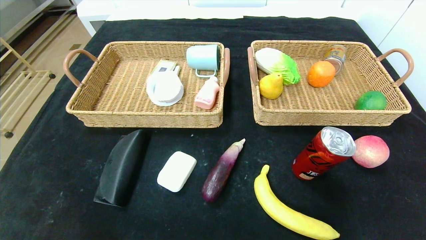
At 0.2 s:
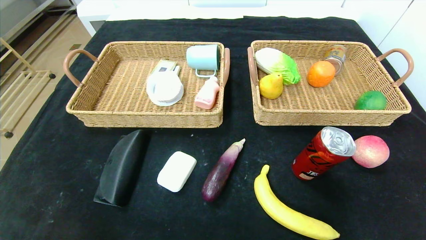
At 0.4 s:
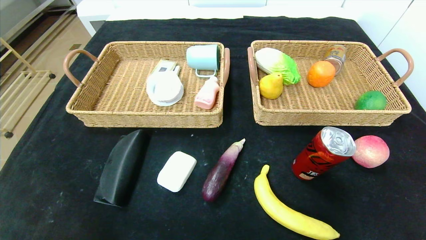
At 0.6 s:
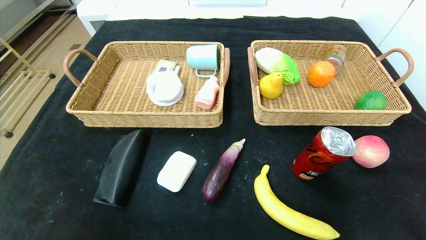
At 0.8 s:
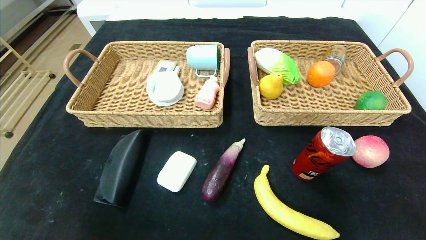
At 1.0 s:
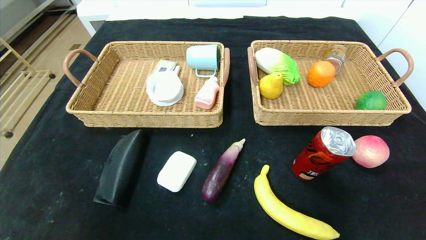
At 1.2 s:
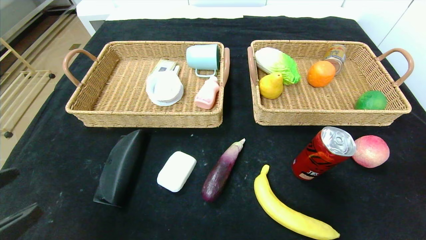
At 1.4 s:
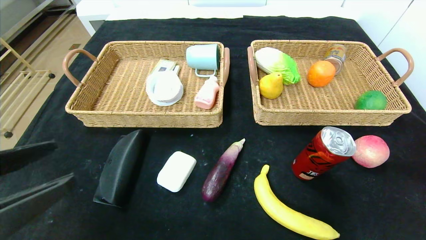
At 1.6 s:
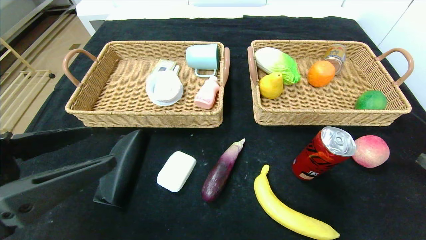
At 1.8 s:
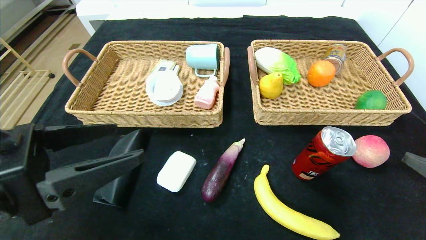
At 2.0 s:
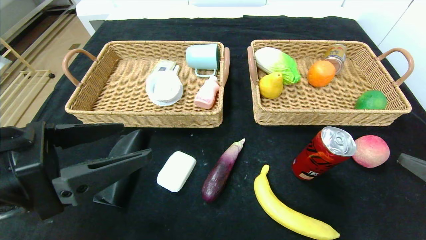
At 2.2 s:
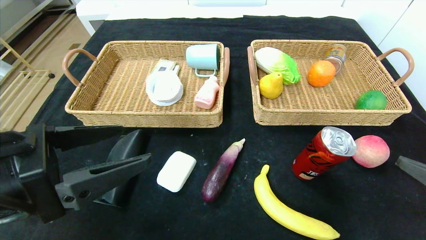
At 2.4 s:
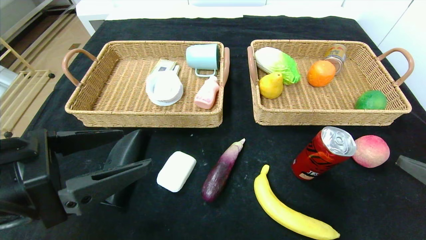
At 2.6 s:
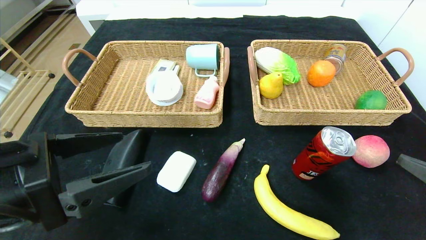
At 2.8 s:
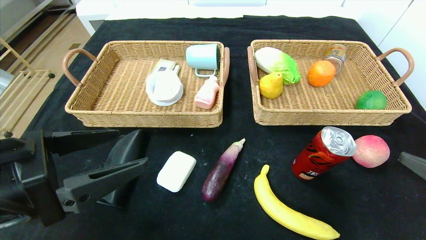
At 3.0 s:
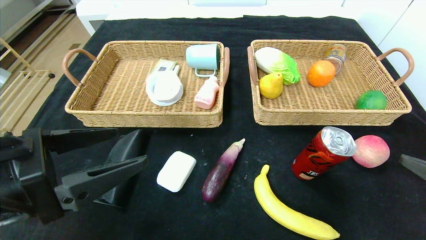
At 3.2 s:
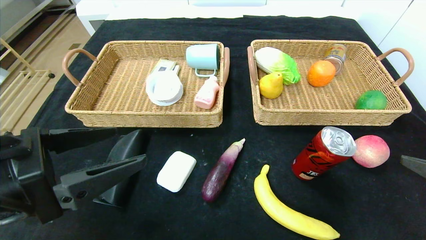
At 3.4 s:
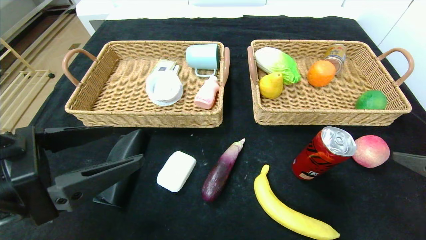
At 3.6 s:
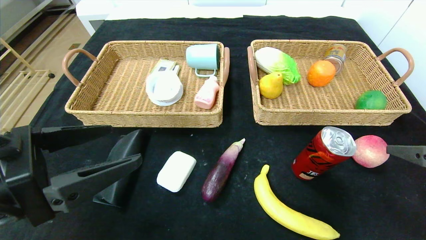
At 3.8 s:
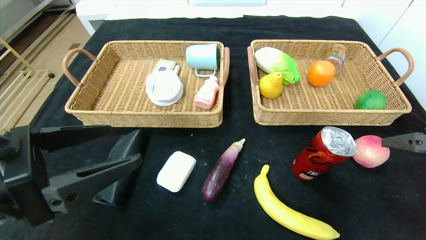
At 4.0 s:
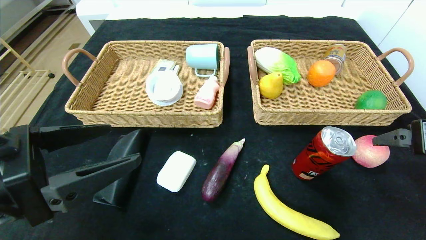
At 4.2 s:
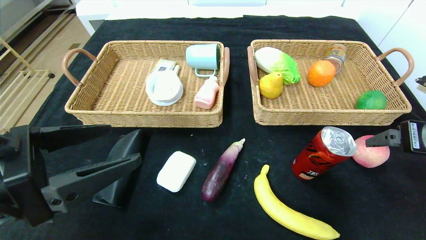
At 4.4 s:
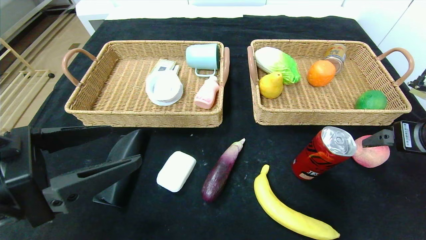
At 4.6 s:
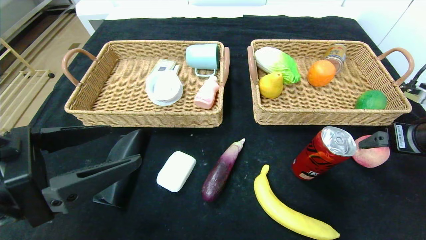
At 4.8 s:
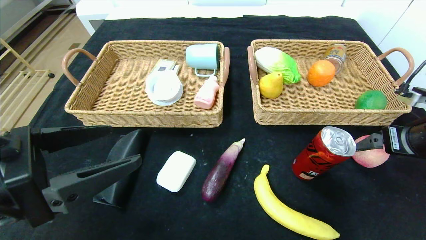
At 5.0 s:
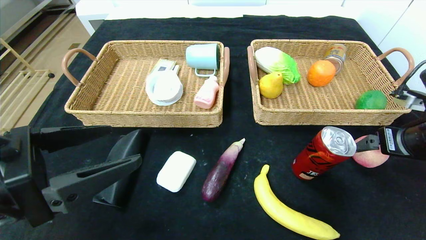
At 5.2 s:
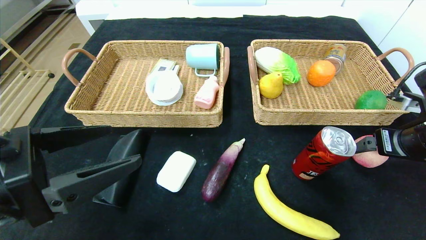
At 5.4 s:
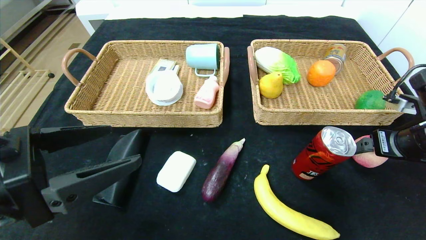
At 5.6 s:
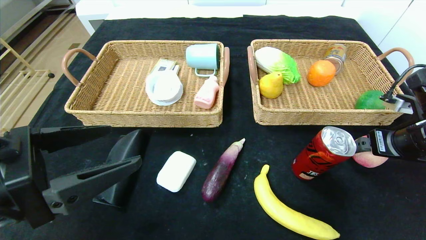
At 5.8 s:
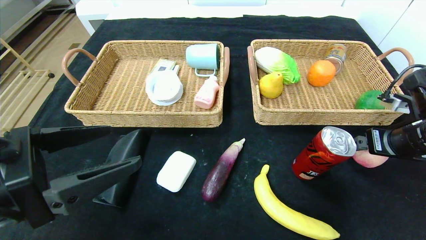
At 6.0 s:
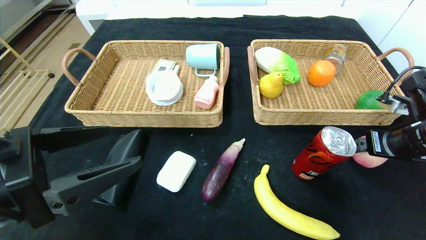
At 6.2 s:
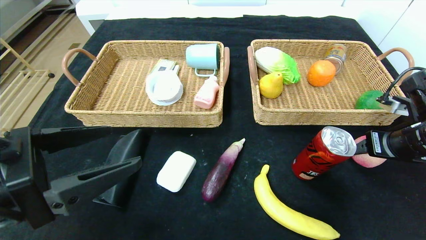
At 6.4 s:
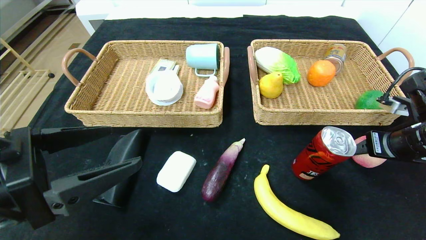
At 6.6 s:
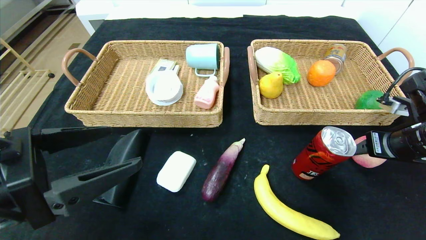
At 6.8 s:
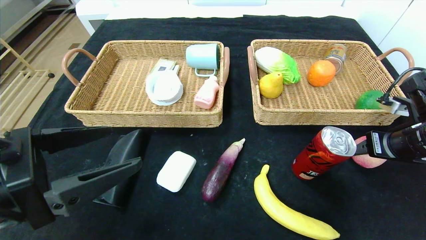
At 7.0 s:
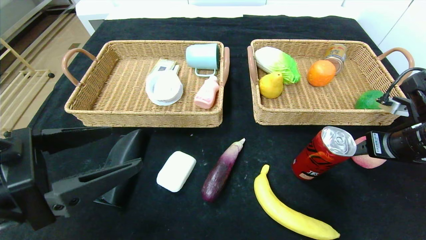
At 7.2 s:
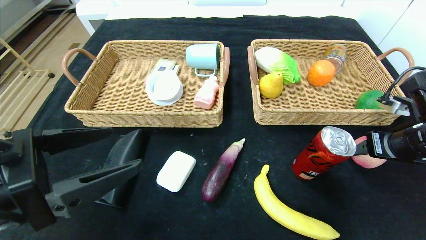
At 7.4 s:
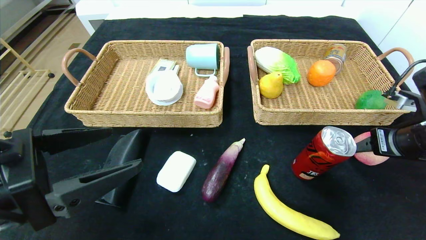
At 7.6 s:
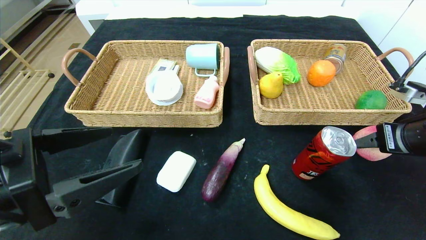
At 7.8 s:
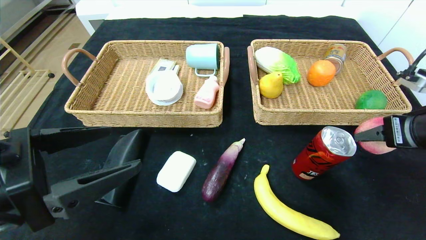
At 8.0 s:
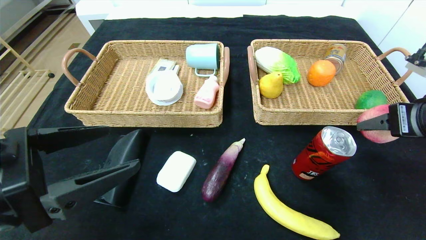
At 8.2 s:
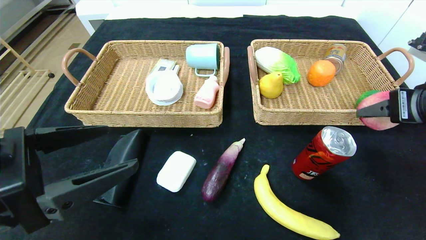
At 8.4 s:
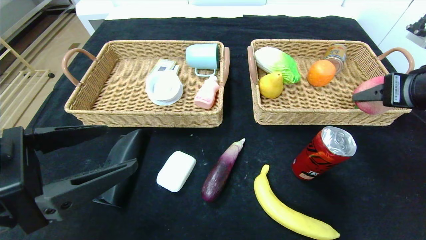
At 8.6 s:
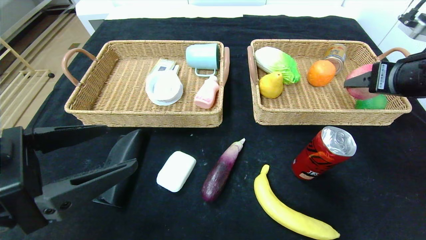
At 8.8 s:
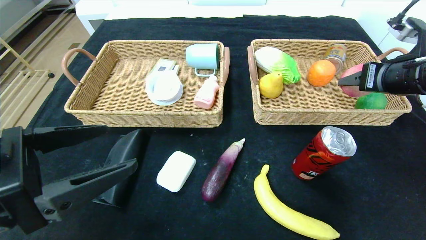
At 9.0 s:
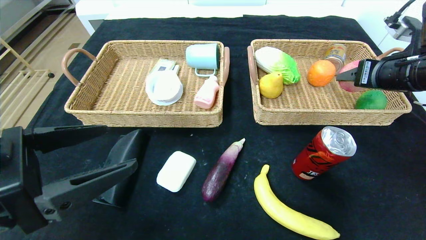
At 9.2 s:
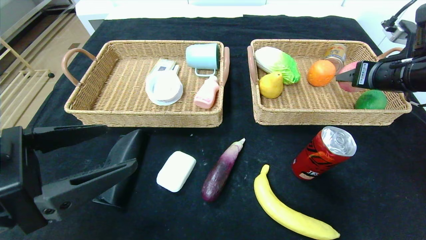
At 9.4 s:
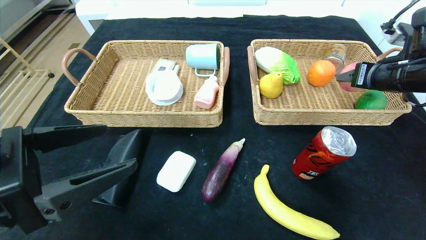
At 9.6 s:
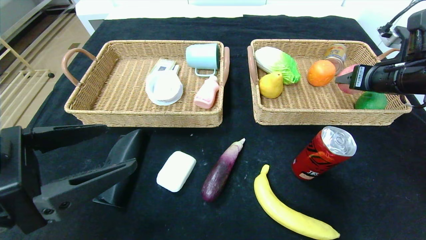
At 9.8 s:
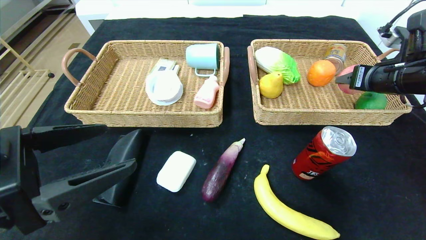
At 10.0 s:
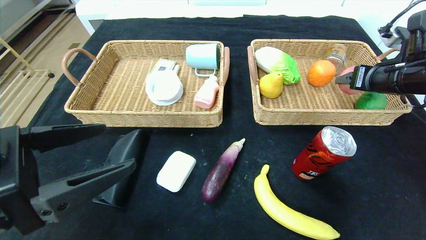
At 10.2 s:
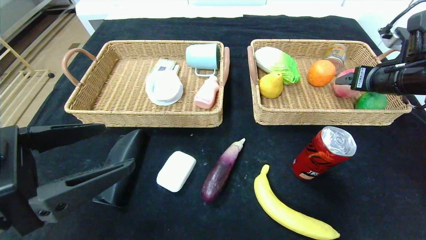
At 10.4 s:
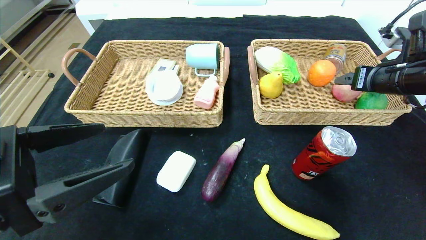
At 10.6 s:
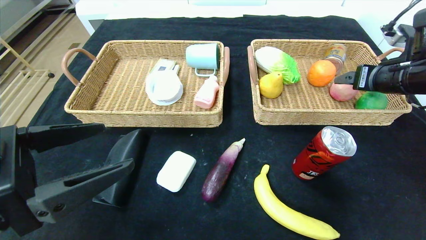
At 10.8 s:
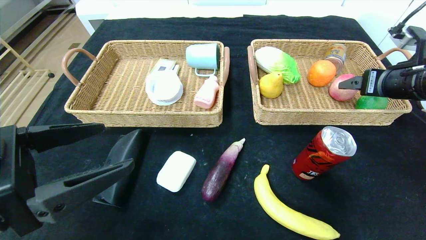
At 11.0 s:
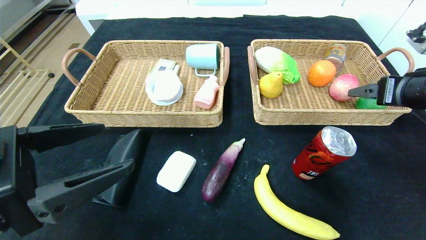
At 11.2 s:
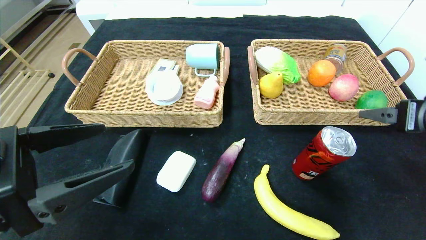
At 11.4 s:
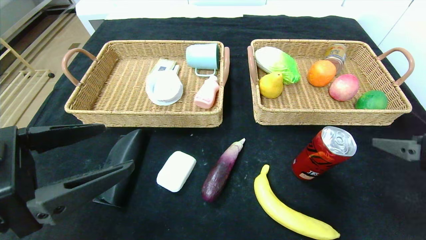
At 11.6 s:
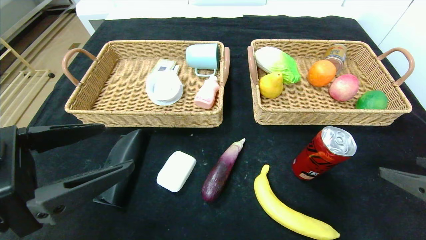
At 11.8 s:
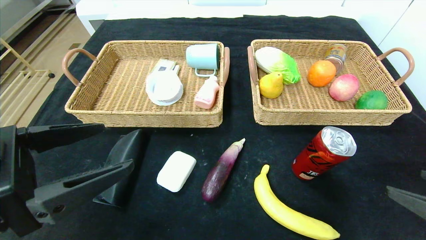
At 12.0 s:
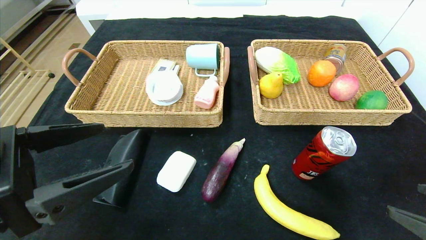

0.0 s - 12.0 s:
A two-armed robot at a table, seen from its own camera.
Step, 0.0 s - 10.2 s: Grasp the peach and put it in the right basket.
0.0 s - 1.6 s: The grippers both shift upward and forward by roughly 20 cm.
1.6 s - 3.0 s: There are only small adjustments of the grippers.
3.0 s - 4.4 s: The right gripper moves forward, approximately 15 cm.
4.4 s - 6.0 s: The right gripper changes place by roughly 5 cm.
6.0 s - 7.6 s: The right gripper closes.
7.6 s - 9.0 s: The right gripper shifts roughly 10 cm forward and upward.
9.0 s - 10.4 s: There are only small adjustments of the grippers.
10.4 s - 12.0 s: The right gripper shifts roughly 25 cm backward.

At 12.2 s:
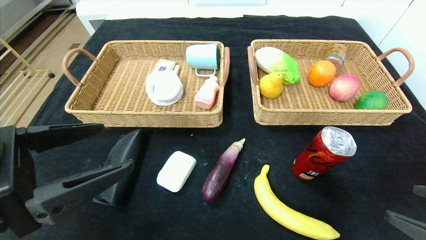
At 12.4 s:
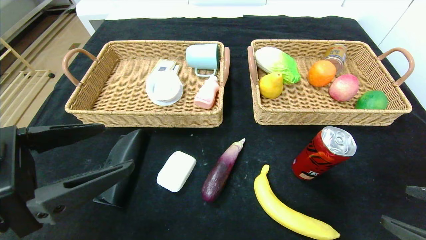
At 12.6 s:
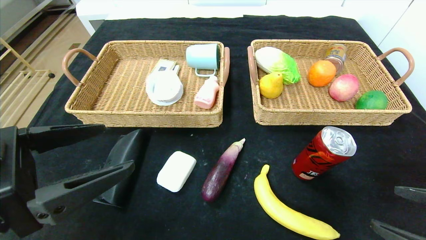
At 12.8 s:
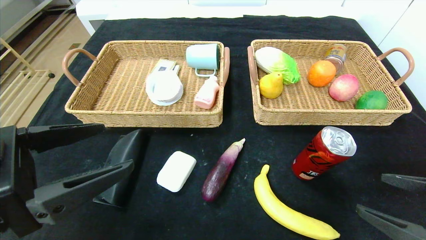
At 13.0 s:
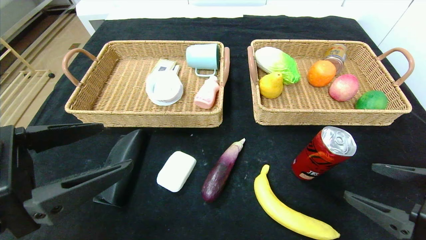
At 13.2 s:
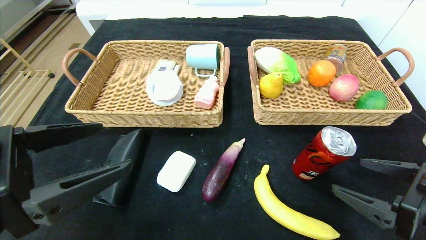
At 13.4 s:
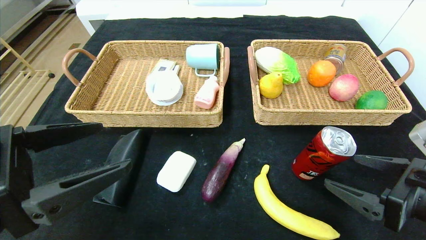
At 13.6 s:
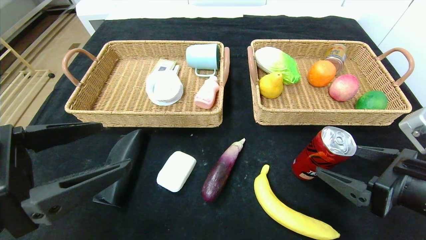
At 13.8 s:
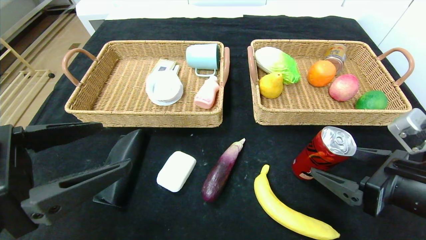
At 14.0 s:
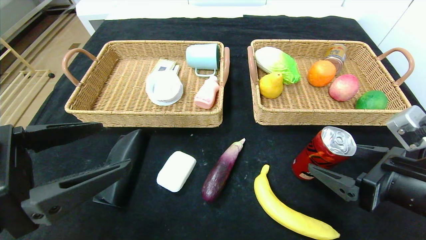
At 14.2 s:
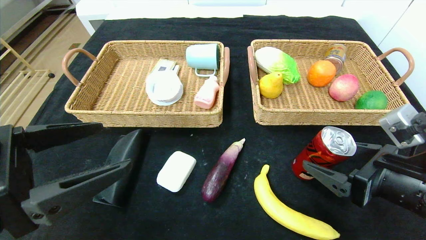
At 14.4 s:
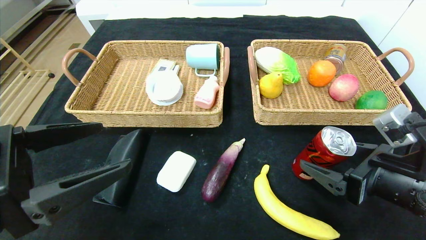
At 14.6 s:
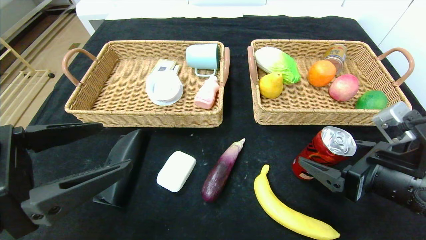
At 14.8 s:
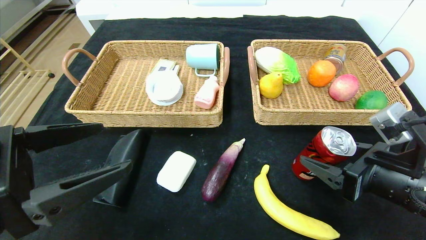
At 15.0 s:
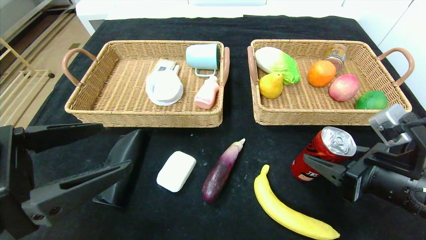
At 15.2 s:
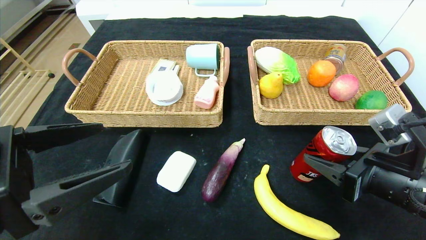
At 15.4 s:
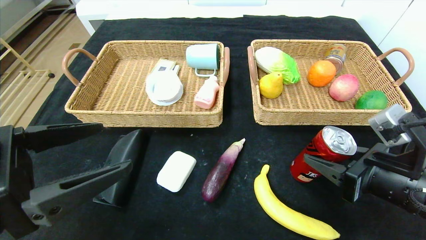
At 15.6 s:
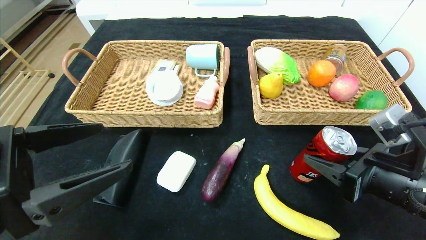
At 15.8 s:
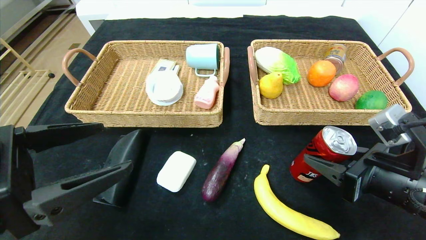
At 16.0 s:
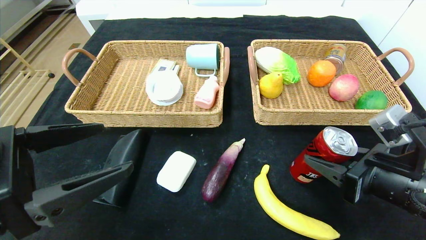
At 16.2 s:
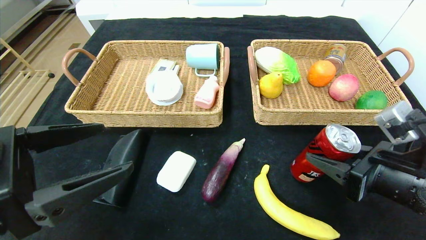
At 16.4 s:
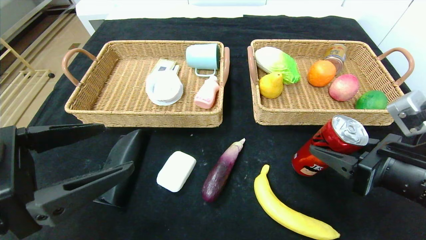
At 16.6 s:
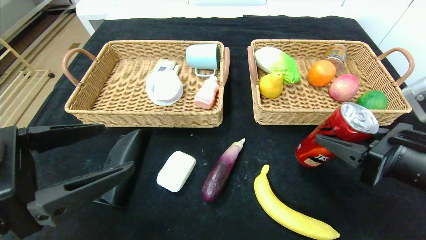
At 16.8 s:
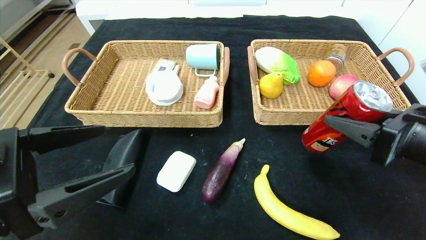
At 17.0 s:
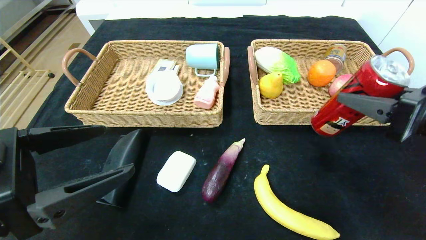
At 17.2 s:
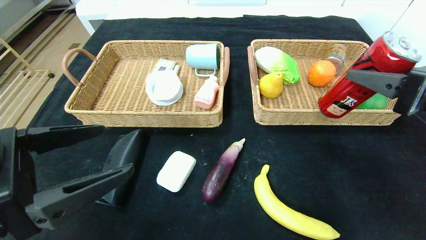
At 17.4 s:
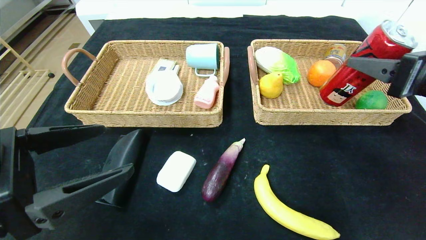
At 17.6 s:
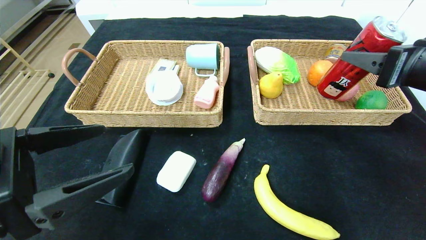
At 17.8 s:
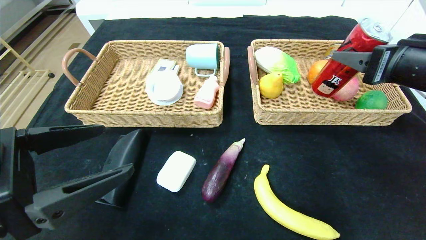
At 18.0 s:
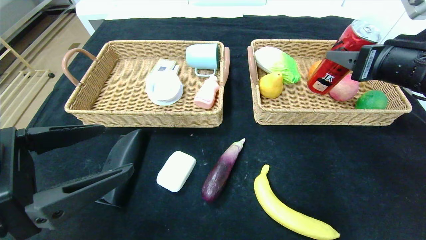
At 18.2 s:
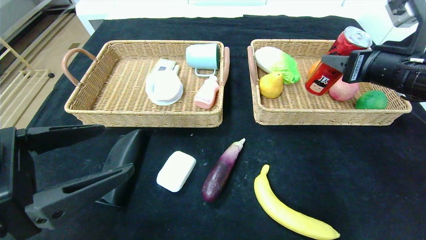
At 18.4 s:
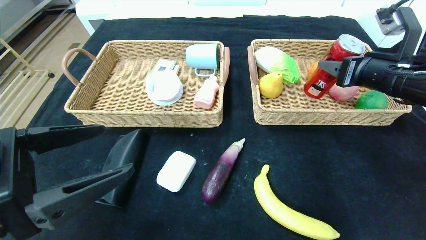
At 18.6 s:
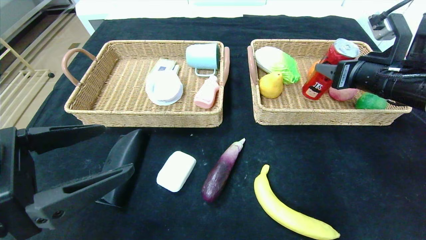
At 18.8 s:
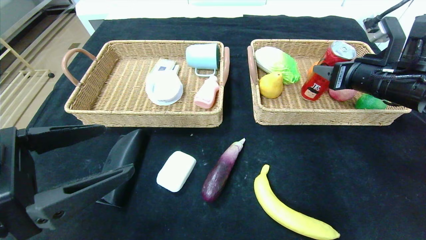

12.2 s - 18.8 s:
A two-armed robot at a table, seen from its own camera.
12.2 s - 13.8 s: The right gripper moves forward and to the left, some 10 cm.
13.8 s - 15.4 s: The right gripper closes up.
15.4 s - 17.2 s: The right gripper goes about 10 cm upward.
17.2 s - 18.8 s: The right gripper heads forward, covering roughly 15 cm.
